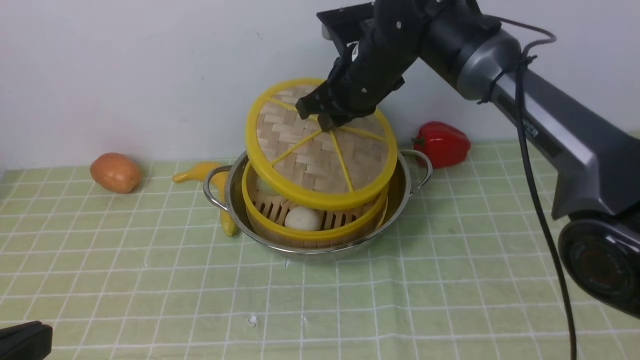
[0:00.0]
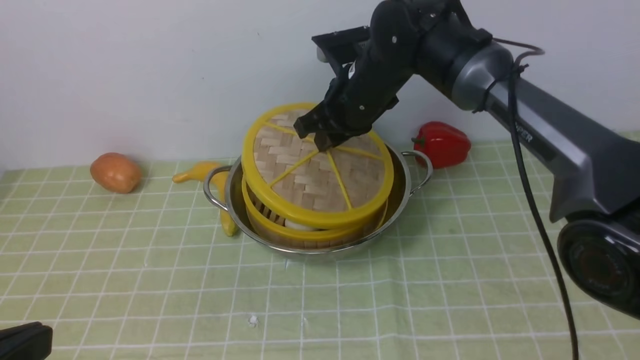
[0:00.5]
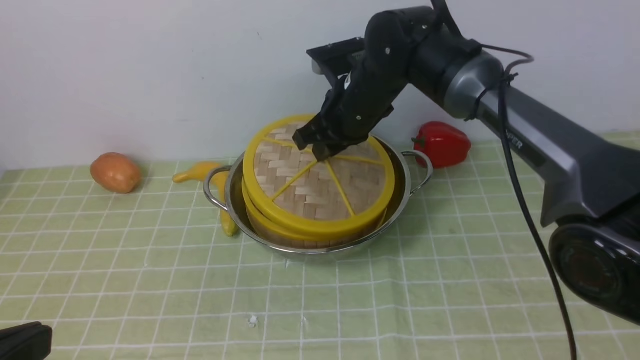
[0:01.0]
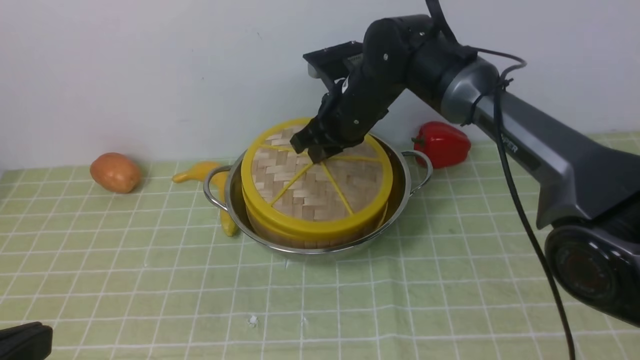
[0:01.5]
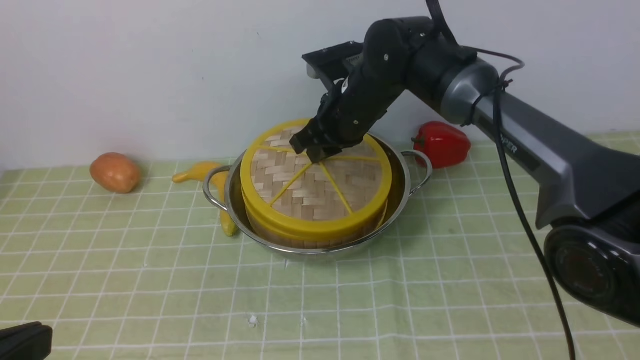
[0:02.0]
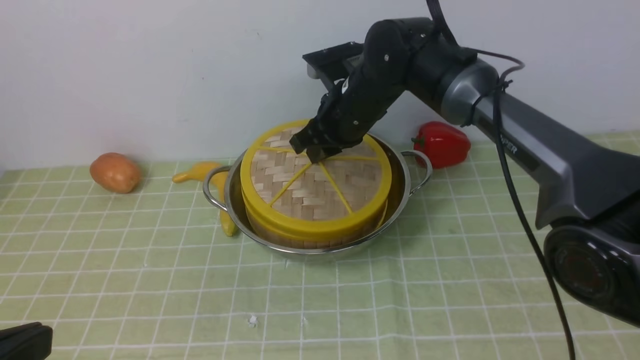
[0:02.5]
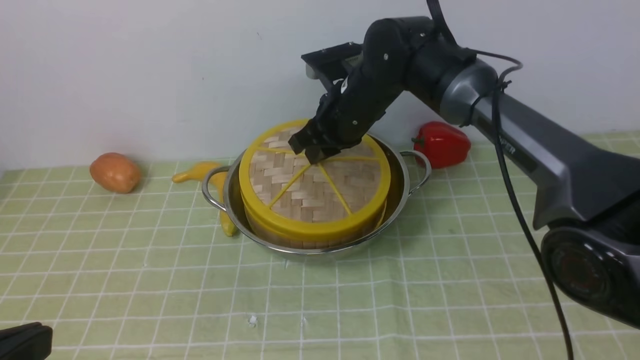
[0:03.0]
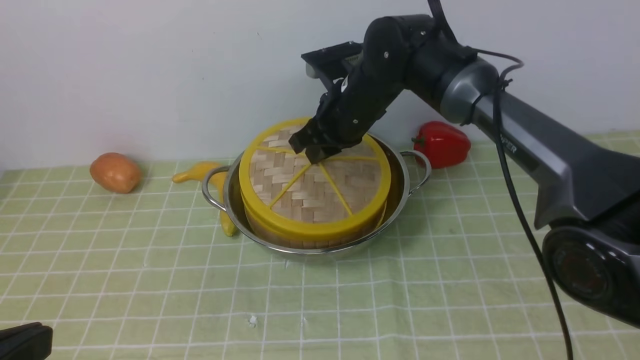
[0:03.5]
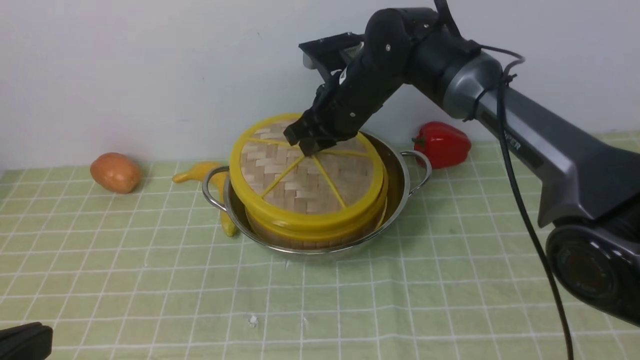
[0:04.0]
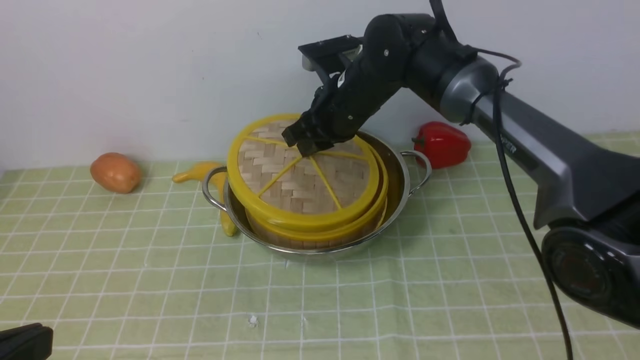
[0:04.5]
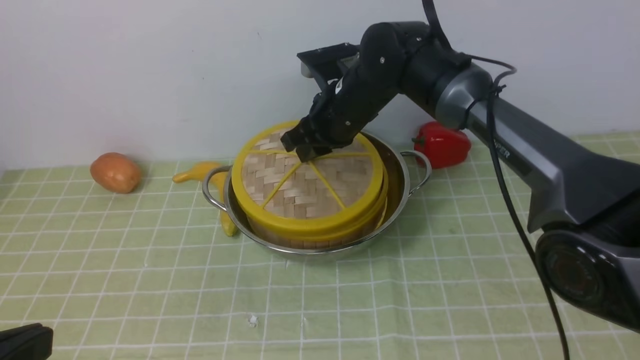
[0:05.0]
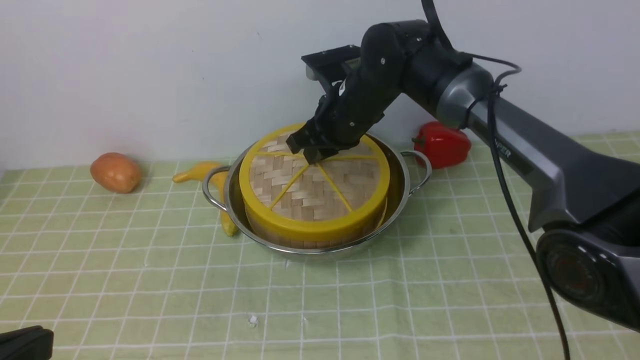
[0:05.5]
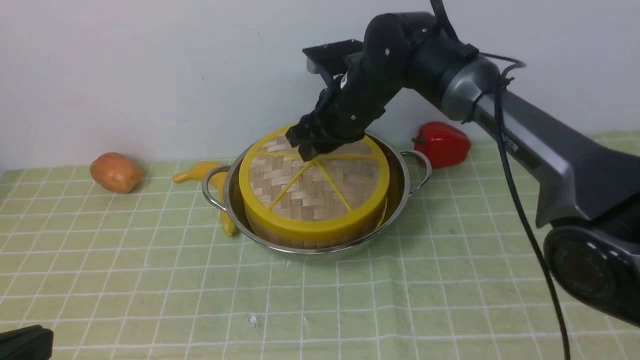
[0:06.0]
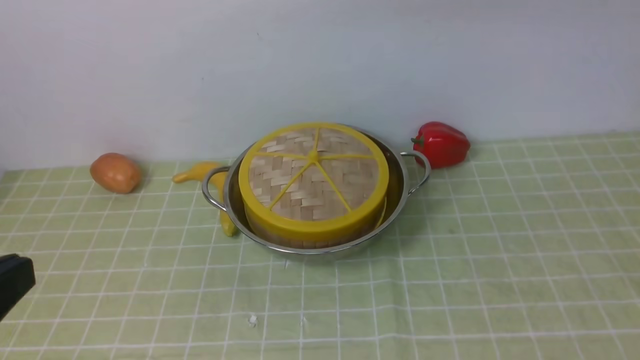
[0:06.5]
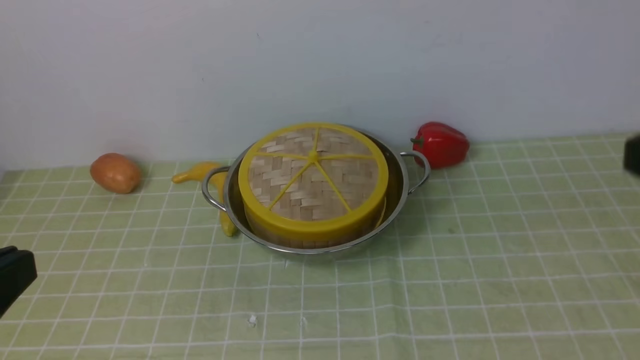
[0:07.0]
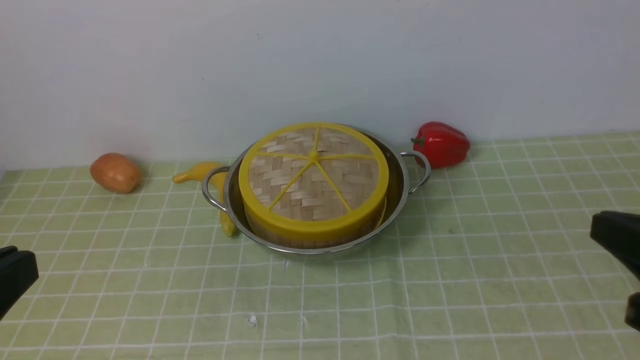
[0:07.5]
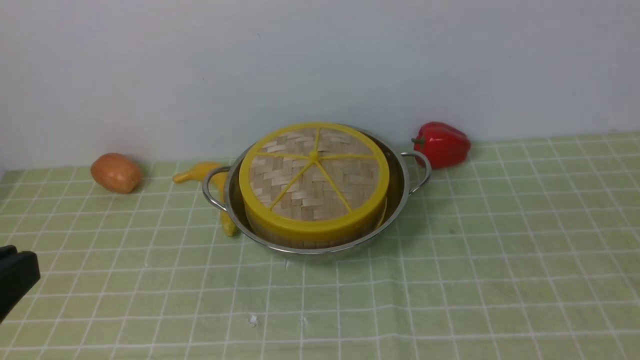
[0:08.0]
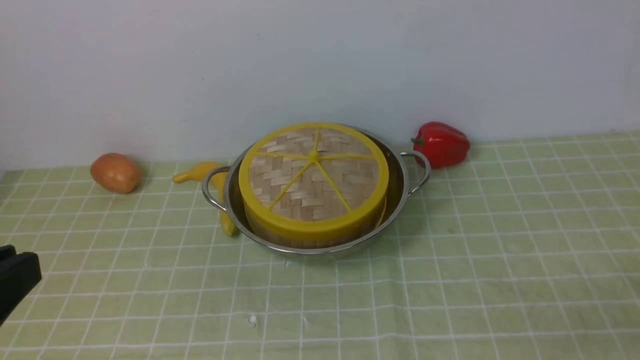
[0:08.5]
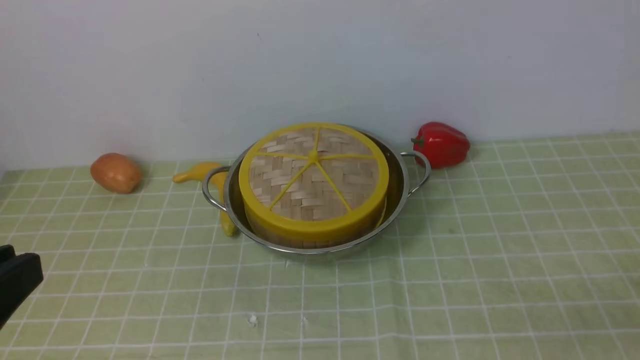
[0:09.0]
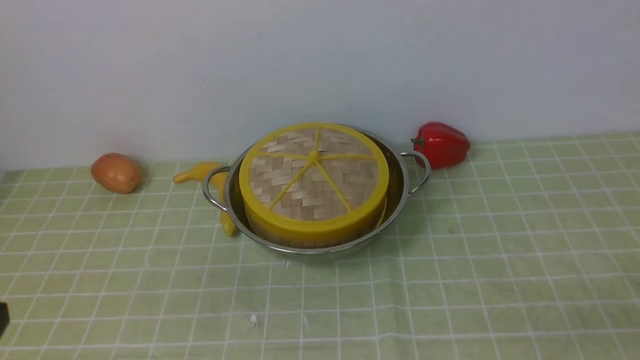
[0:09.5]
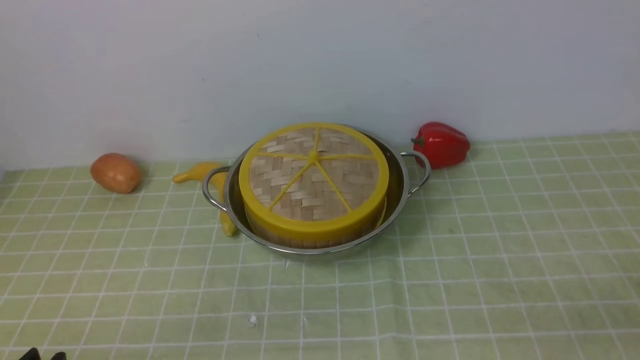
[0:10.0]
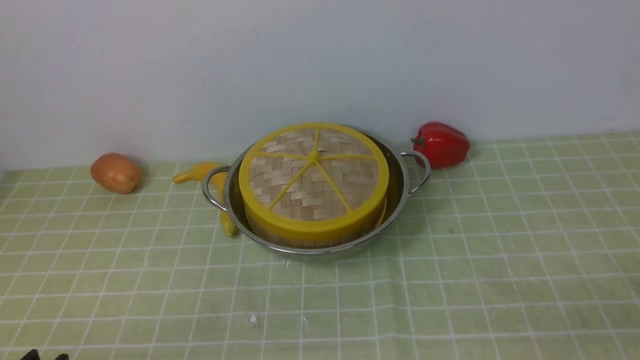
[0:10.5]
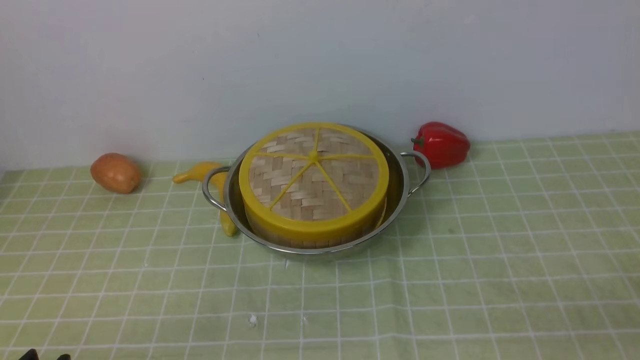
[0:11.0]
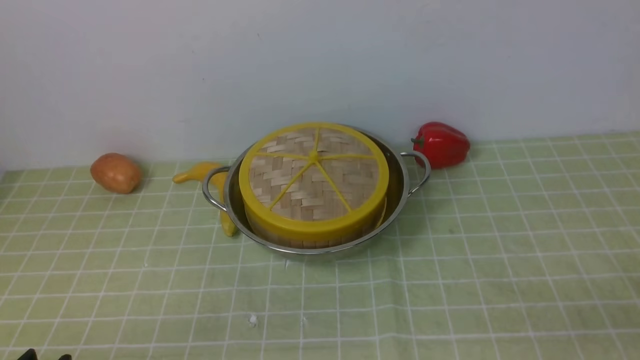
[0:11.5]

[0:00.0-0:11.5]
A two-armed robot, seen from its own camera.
Task of the whole recording: place the steamer in the pot on the green tablecloth, and put the lid on the steamer.
Step, 0:00.0 to 0:06.5: use the right arm to place the steamer lid on the steamer.
0:00.0 to 0:02.0: The grippers make only small movements.
0:02.0 to 0:04.0: The two grippers keep their place.
0:04.0 to 0:06.0: The right gripper opens up.
0:06.0 to 0:07.5: The right gripper heads backward and to the right, covering about 40 cm, and closes its fingers.
0:07.5 to 0:09.5: The left gripper opens its fingers. Meanwhile the right gripper moves downward, backward and to the right, about 15 cm, and opens.

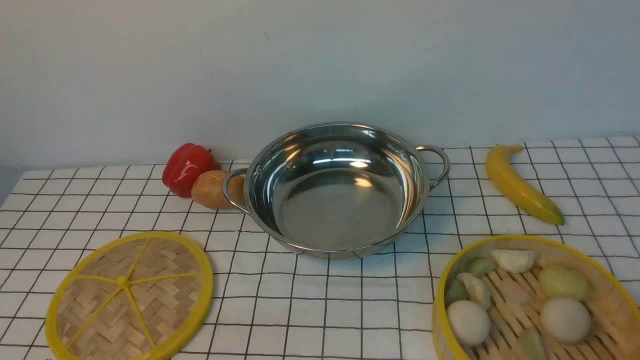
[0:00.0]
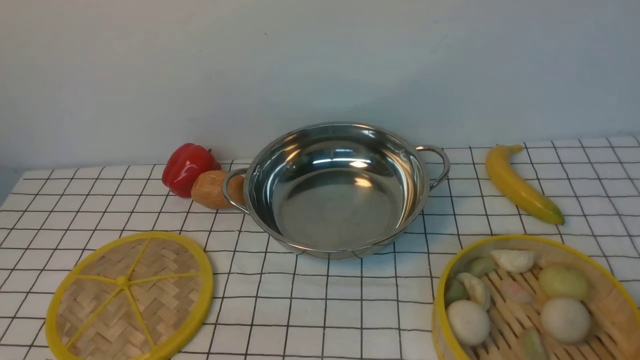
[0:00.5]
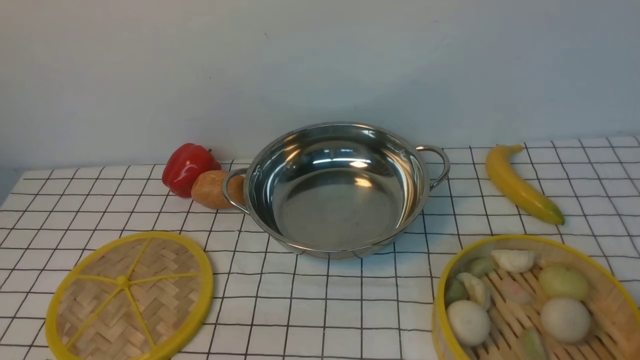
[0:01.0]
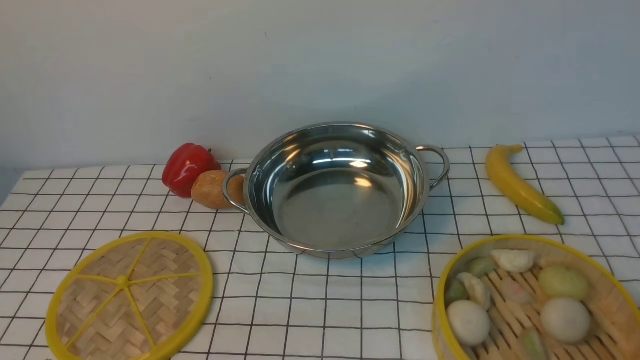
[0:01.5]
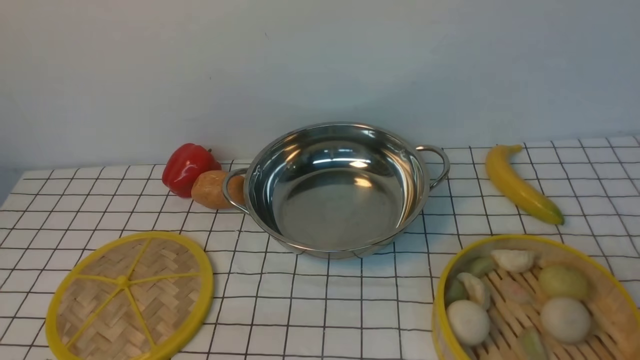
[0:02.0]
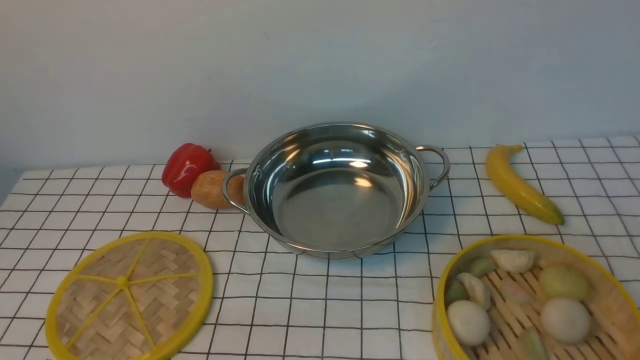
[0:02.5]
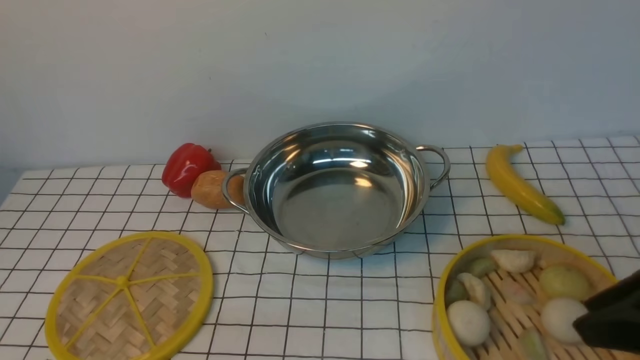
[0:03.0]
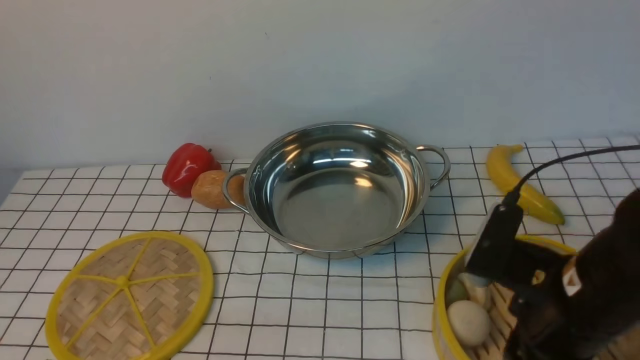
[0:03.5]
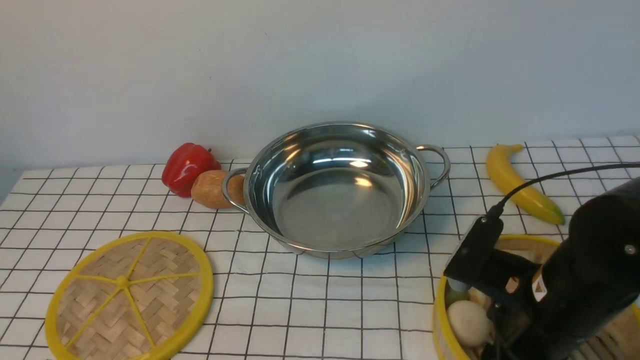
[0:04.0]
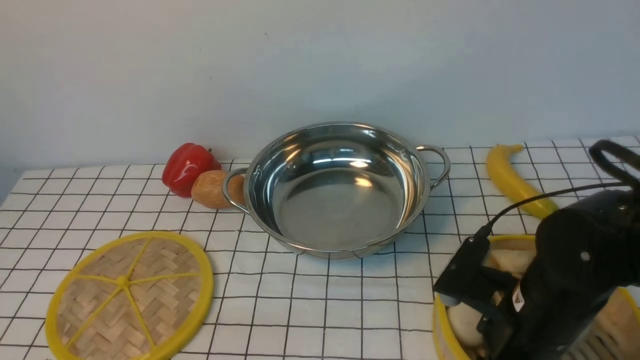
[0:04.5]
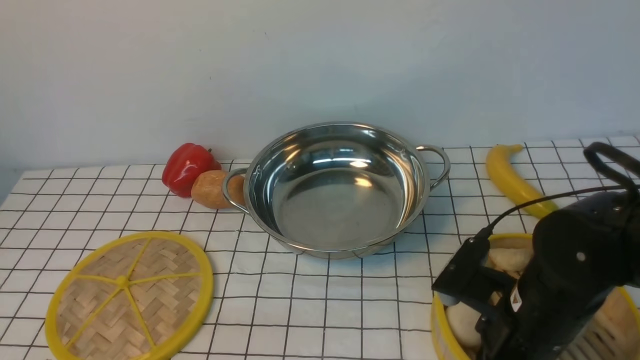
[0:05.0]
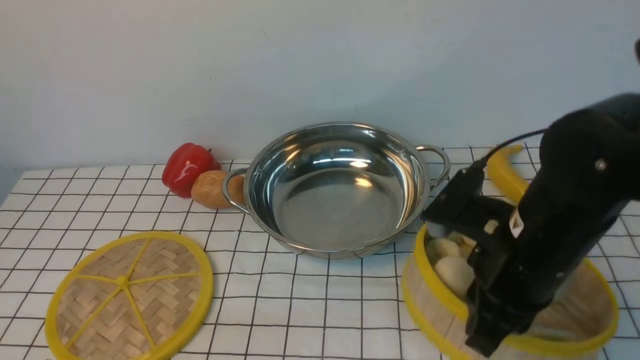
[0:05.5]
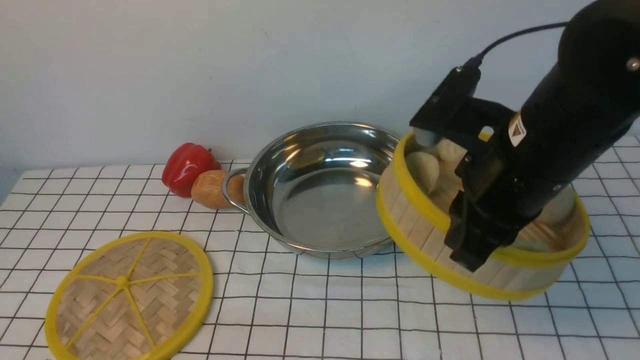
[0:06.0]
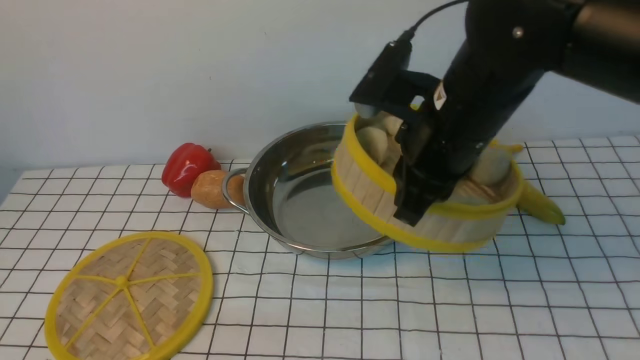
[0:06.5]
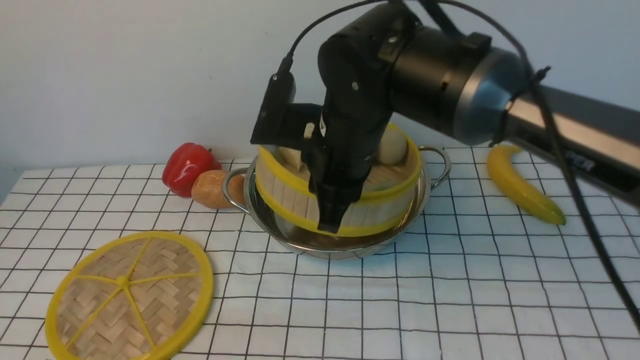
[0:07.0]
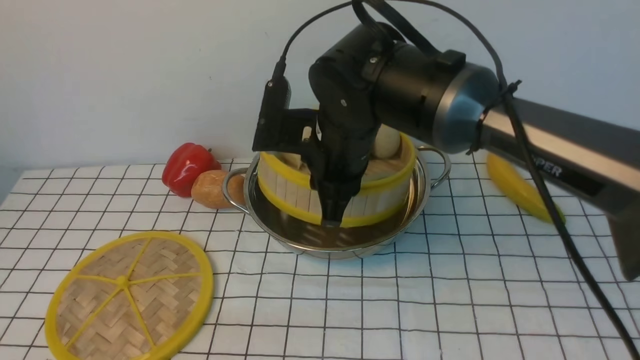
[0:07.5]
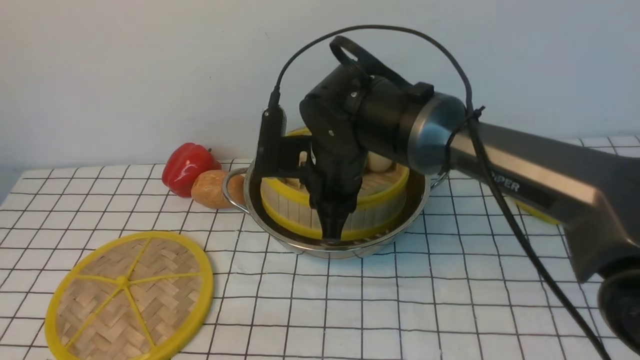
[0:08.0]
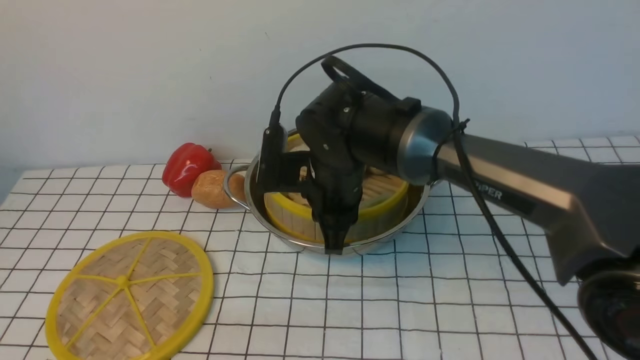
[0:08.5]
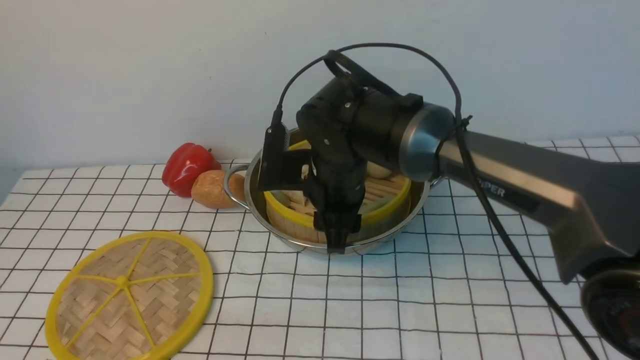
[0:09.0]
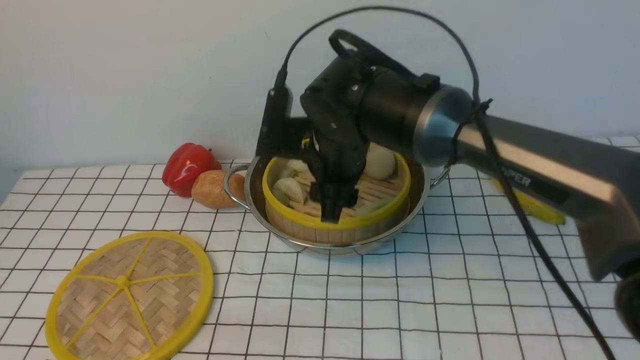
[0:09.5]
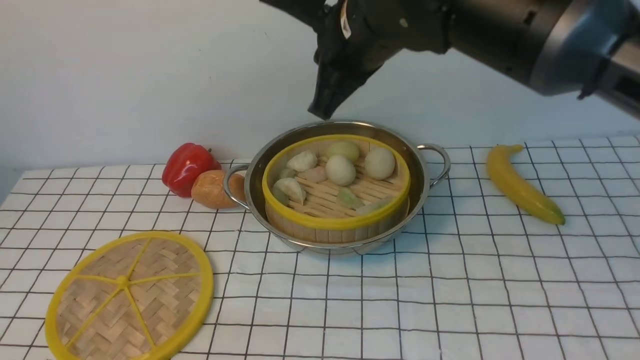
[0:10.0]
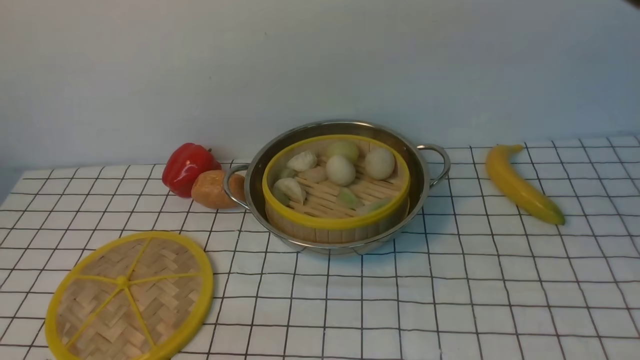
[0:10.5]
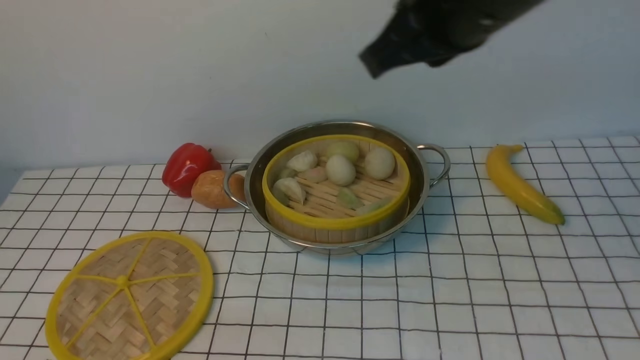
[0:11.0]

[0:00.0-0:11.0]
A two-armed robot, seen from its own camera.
Task of the whole recording: place the steamer in the pot on the white tablecloth, and put the lid on the steamer.
Step, 0:00.0 to 0:05.0: use the right arm to lift the steamer closest to it.
Step, 0:05.5 to 0:09.5: use the right arm to put the steamer into the iron steamer pot in the middle.
0:02.0 to 0:03.5: The right gripper heads forward and to the left, covering roughly 20 cm.
0:03.5 to 0:05.5: The right gripper changes place by some 5 cm, and closes its fingers.
0:05.5 to 0:07.5: The right gripper moves to the left and forward, approximately 20 cm.
0:07.5 to 0:09.0: The right gripper heads downward, covering approximately 5 cm, and opens up.
0:09.0 to 0:11.0: The right gripper goes some 25 cm upward and to the right, and closes its fingers.
